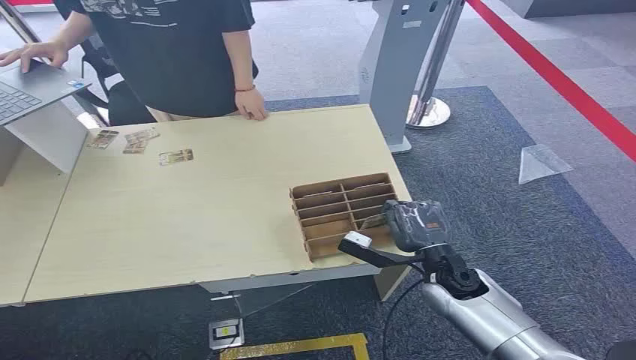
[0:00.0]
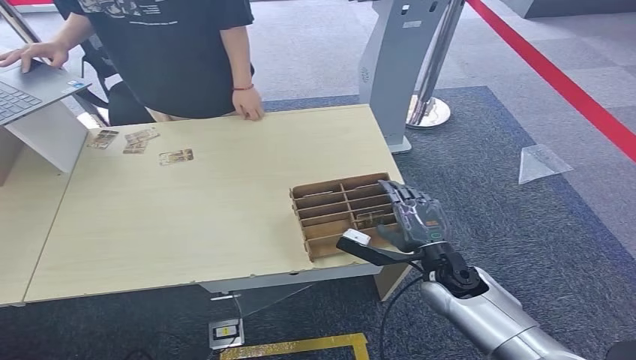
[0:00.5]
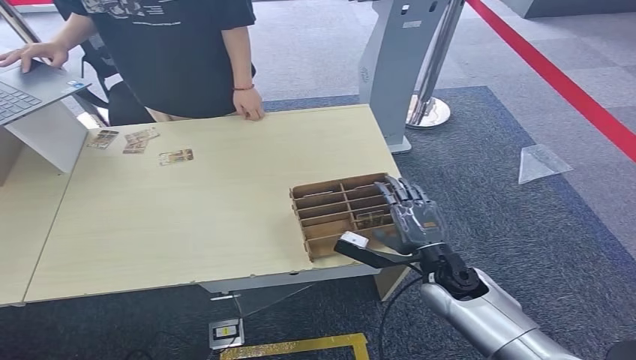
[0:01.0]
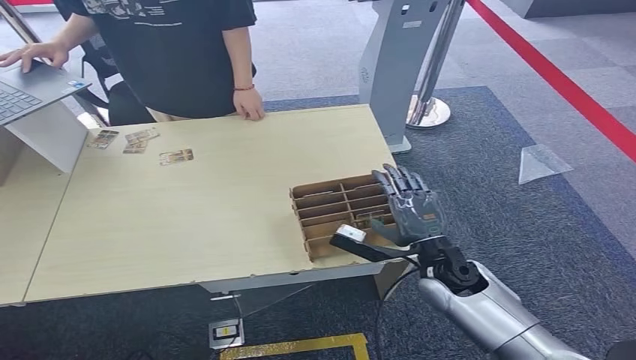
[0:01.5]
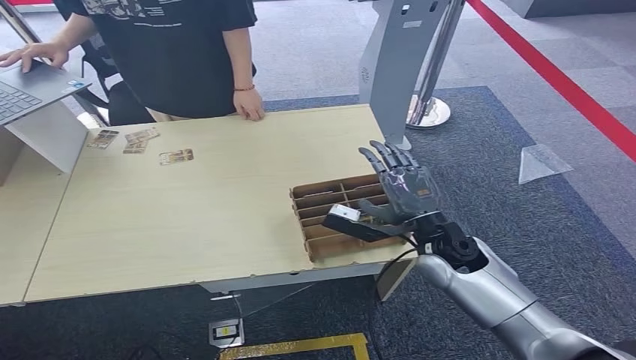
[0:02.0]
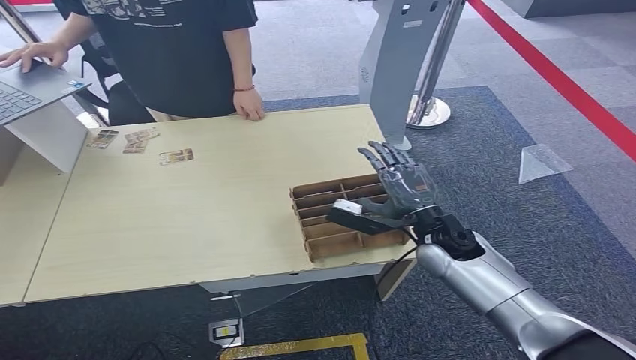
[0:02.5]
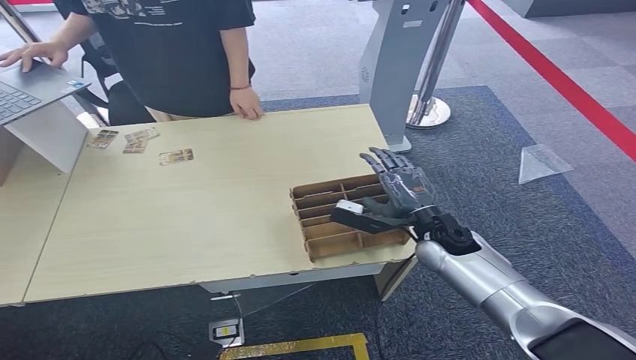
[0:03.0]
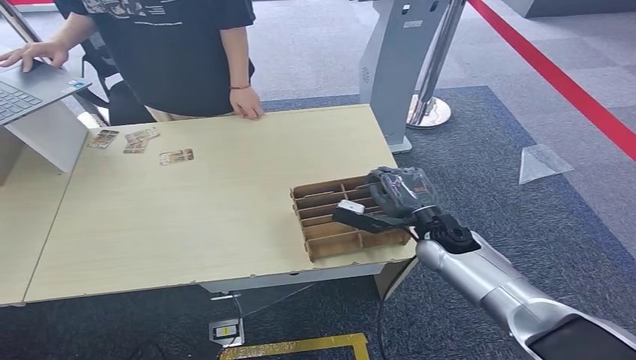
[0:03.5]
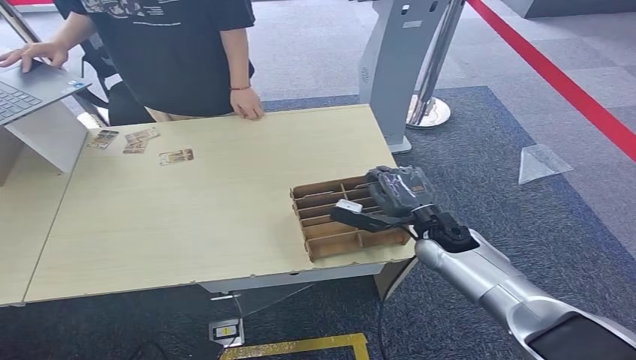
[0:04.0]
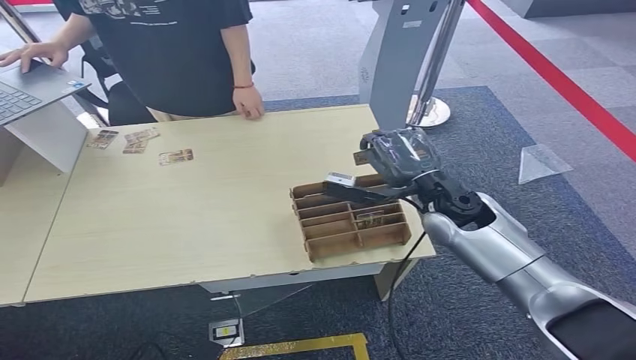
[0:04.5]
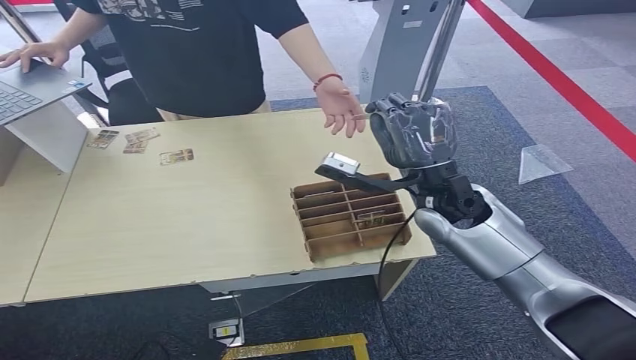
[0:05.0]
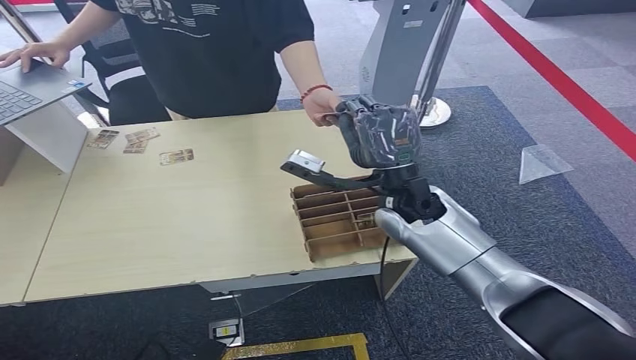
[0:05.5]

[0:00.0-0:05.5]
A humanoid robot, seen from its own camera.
Step, 0:00.0 to 0:04.5: Pick up the room card from the card holder.
Step, 0:05.0 to 0:05.5: Hand the room card to the target.
0:02.0 to 0:03.5: The right hand ends up approximately 5 cm from where it was.
0:03.5 to 0:05.5: The right hand shifts about 15 cm to the left and upward.
